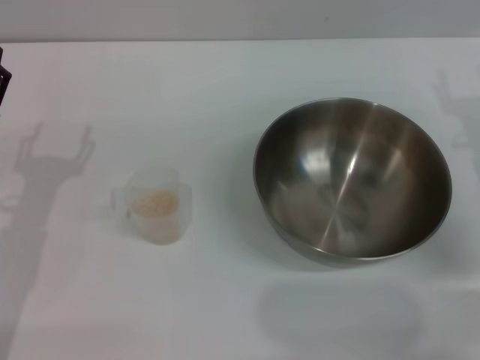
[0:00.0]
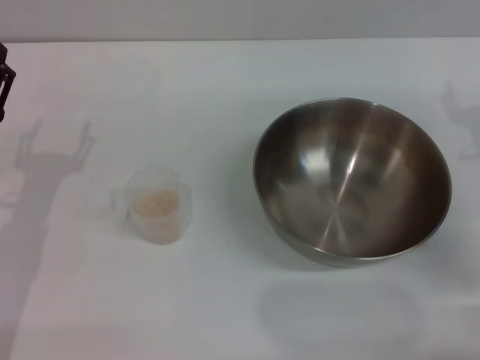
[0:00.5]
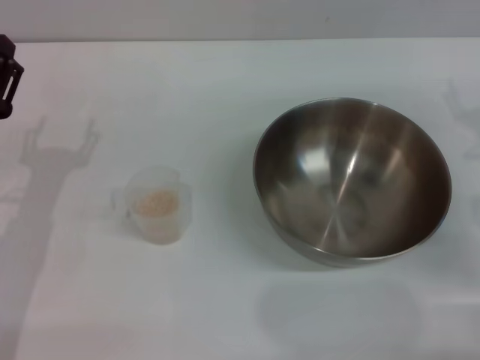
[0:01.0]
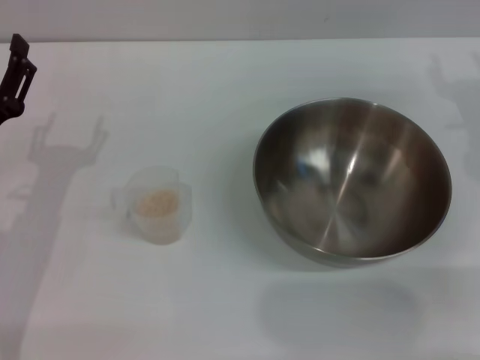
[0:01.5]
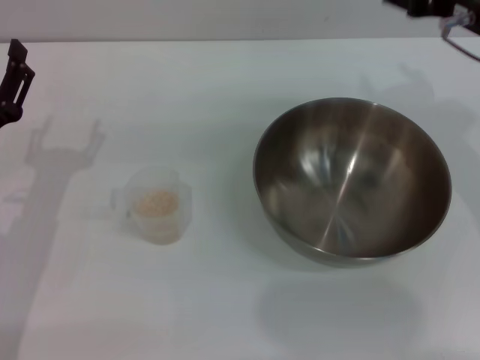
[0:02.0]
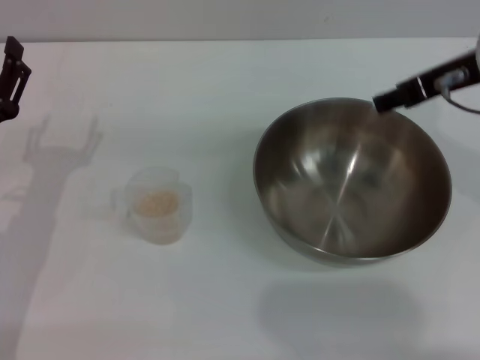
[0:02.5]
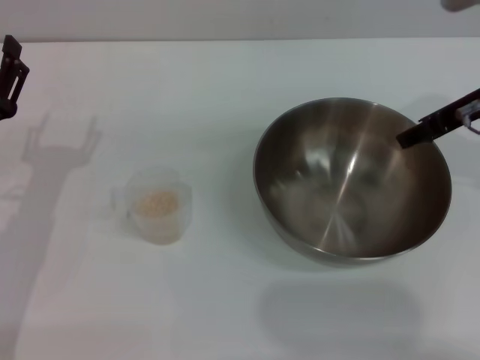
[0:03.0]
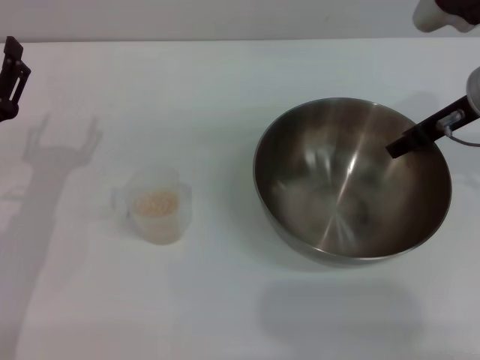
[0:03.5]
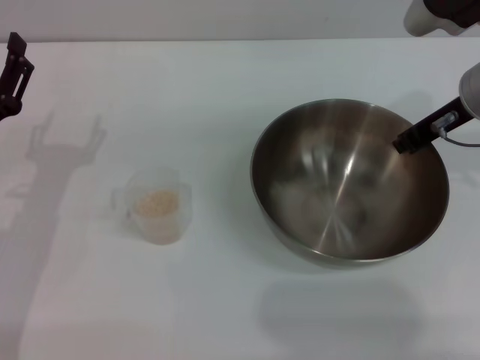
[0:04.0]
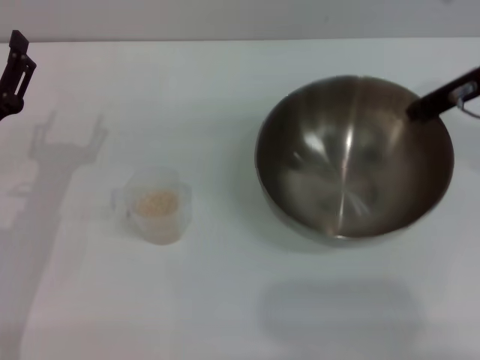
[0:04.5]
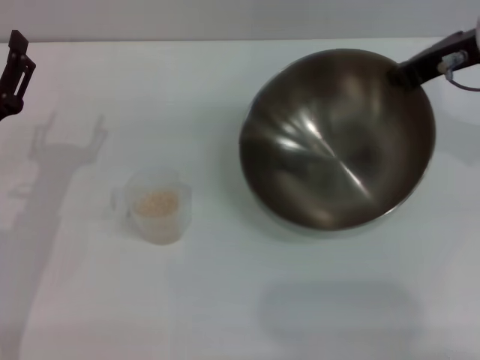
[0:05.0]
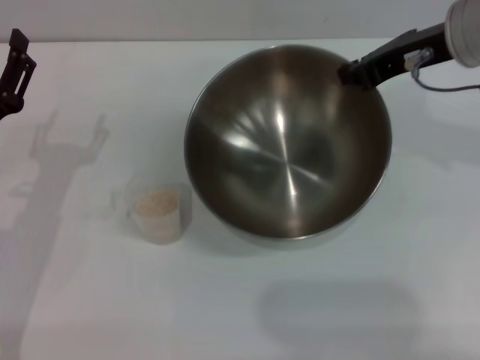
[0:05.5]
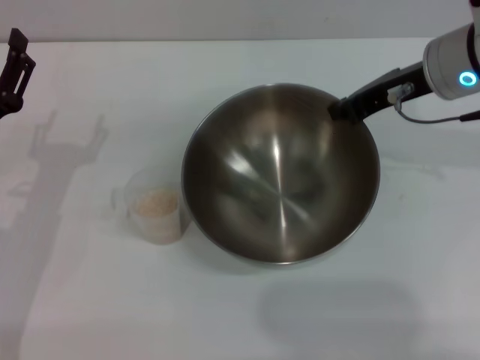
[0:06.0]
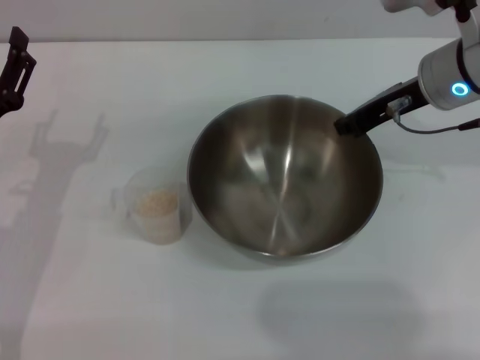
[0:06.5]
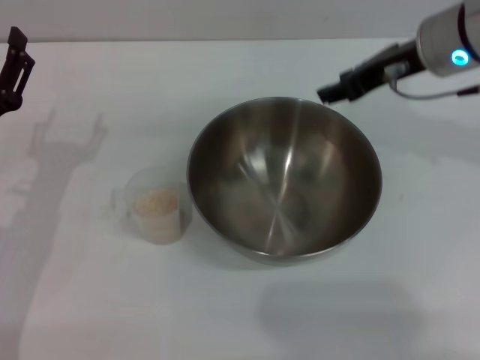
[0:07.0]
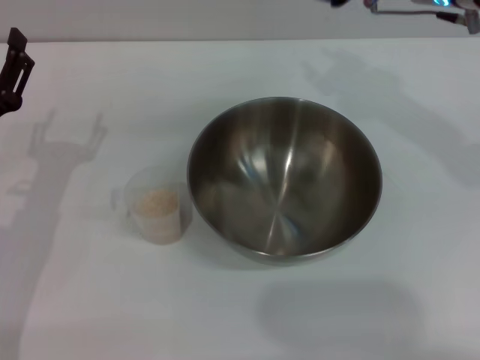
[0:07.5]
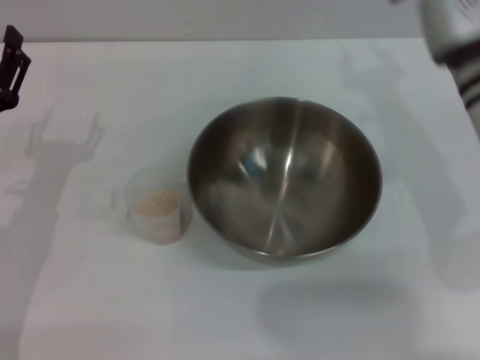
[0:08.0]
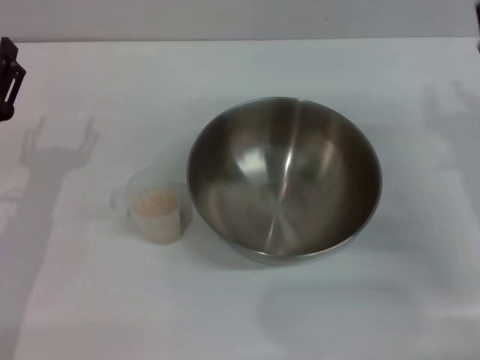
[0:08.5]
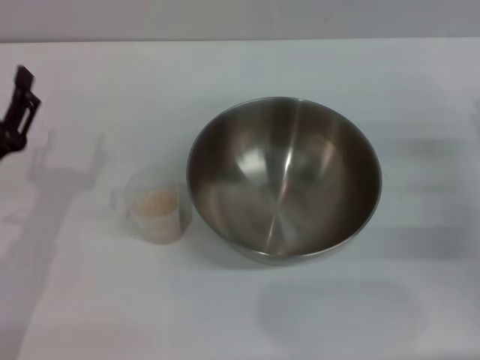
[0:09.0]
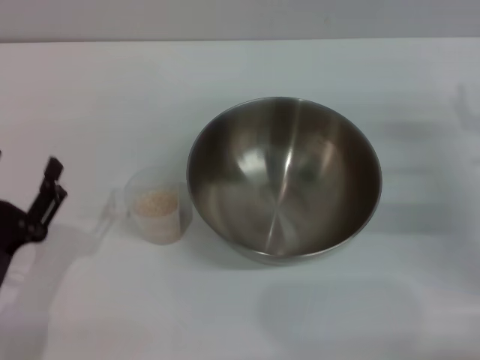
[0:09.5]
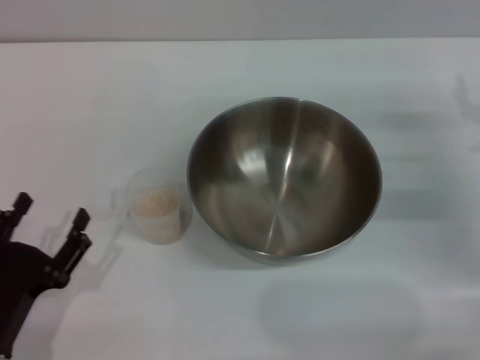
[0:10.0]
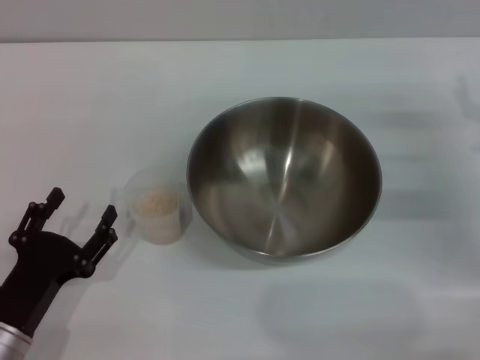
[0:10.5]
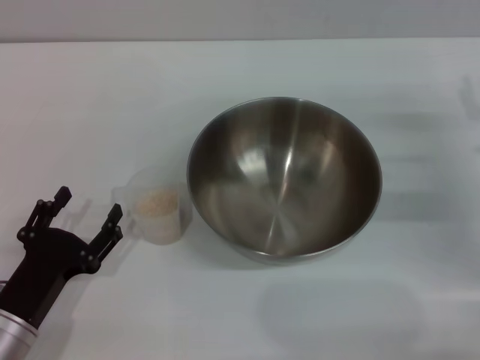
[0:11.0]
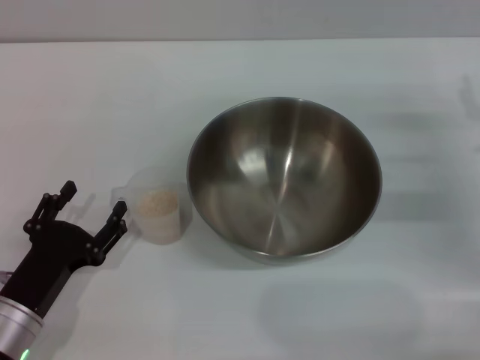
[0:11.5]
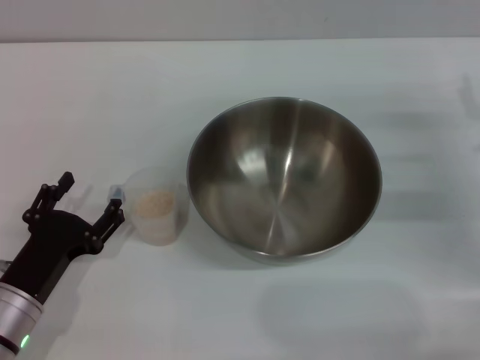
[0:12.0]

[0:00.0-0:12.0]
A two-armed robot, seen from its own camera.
Task of the whole recording: Place the bowl in the middle of the table with one hand and pour the rice from the grain cup into it with the other hand.
Step, 0:00.0 to 0:05.0: Pick up the bowl with the right gripper.
Step, 0:05.5 to 0:08.0: Place the bowl in the center of view with the right gripper.
0:00.0 to 0:02.0: The right gripper heads upward and to the left, covering about 15 cm.
0:02.0 to 0:04.0: The right gripper ends up roughly 5 cm from where it was, and closes.
0:06.0 to 0:08.0: The right gripper opens up.
0:08.0 to 0:10.0: The right gripper goes approximately 15 cm to the right and downward, and opens up, while the left gripper shifts about 15 cm backward and downward.
0:10.0 to 0:12.0: The left gripper goes roughly 5 cm forward.

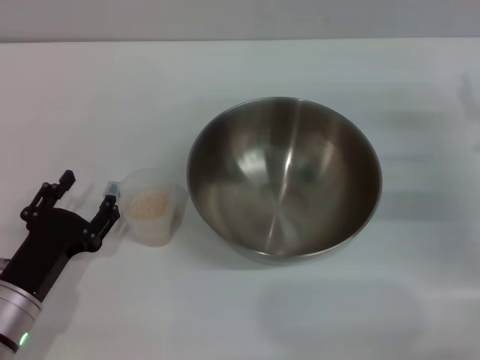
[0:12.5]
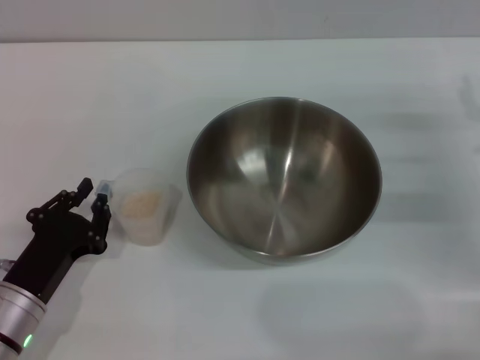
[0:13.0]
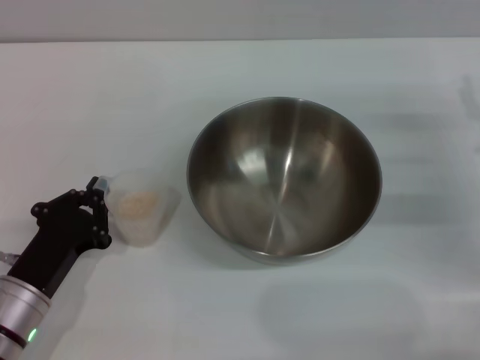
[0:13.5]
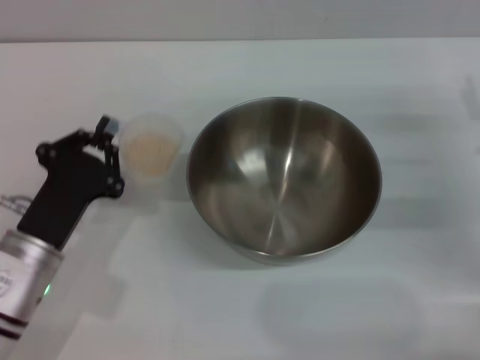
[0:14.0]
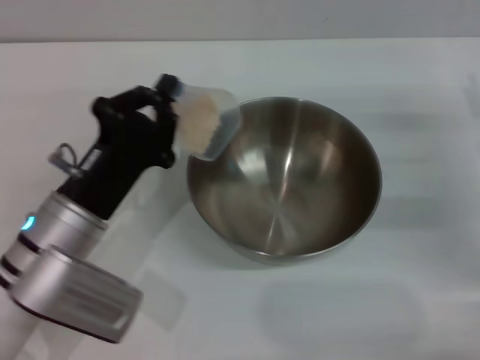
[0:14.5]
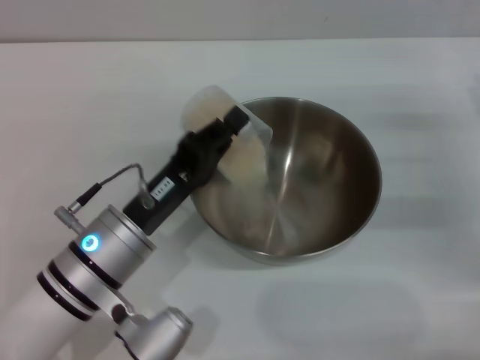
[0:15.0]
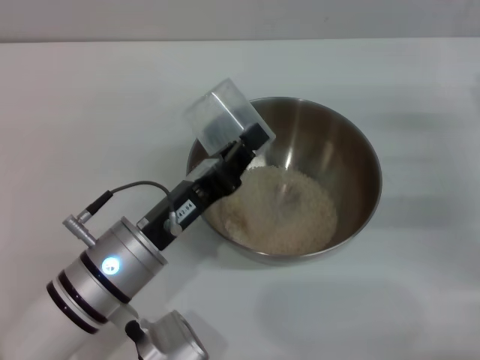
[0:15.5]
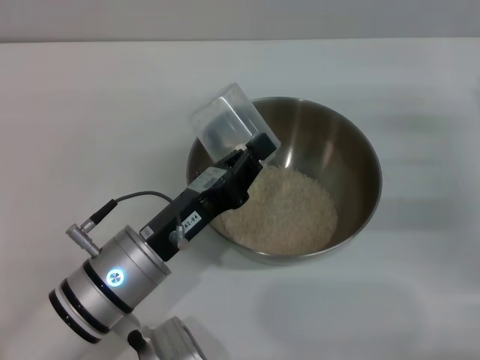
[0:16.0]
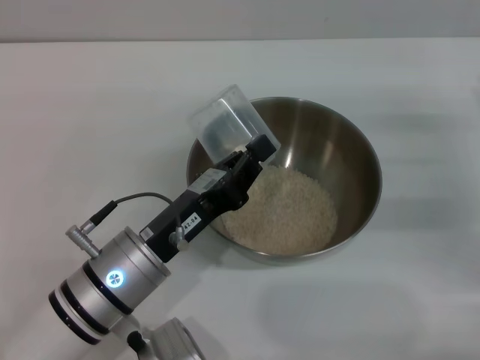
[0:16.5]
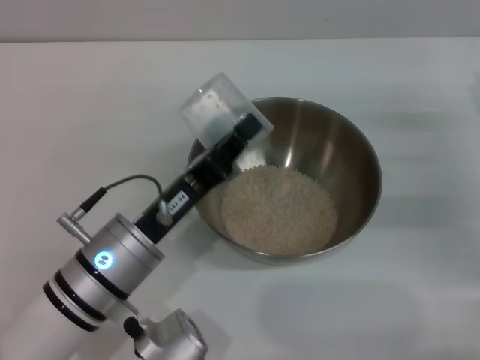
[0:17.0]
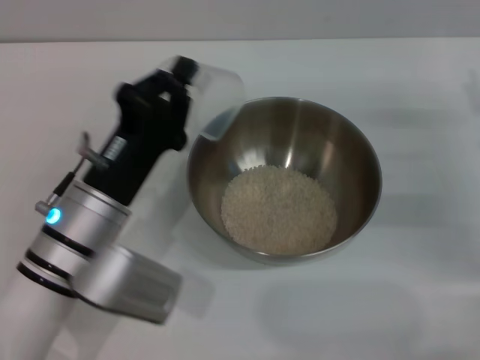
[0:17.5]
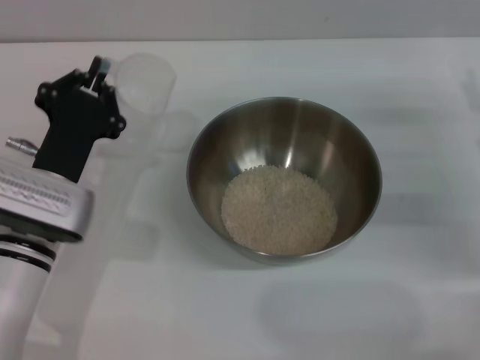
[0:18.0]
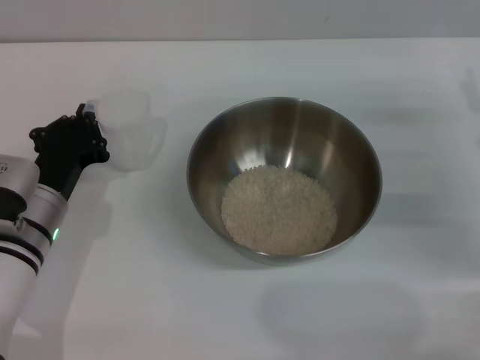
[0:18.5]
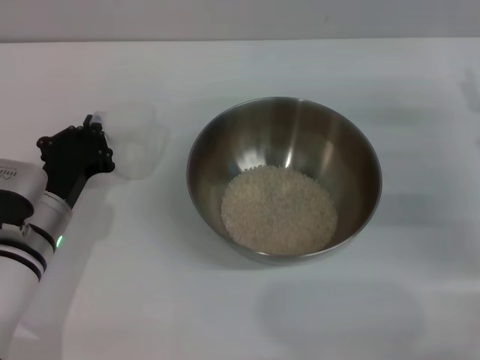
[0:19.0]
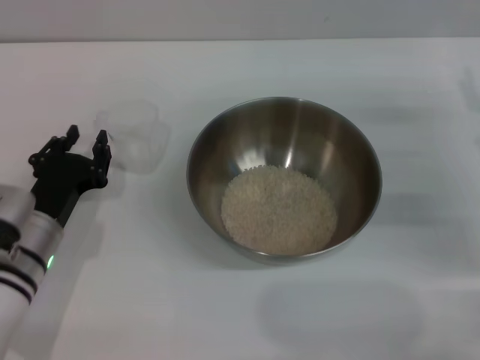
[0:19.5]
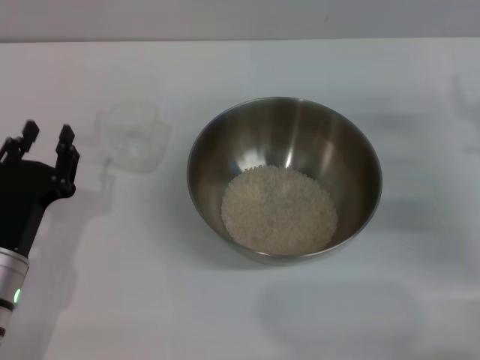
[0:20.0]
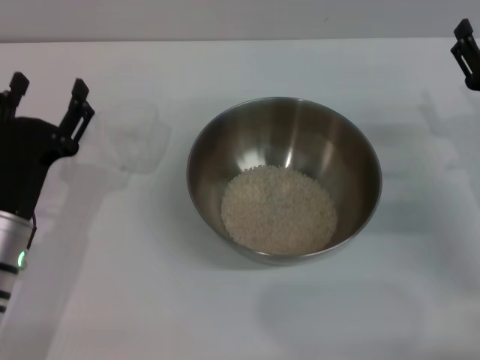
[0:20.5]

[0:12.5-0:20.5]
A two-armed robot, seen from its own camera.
Task of the whole recording: Place the bowl in the middle of the table with one hand and pour the rice from the grain cup into it with the other hand.
Step, 0:14.5 to 0:17.0: Pour the rice from the cup into the bowl with the left gripper.
Step, 0:17.5 to 0:19.5: Place the cup on the table with the left gripper.
0:12.5 to 0:14.5: The left gripper moves to the right, upward and forward, about 10 cm, and closes its fingers.
0:14.5 to 0:16.5: The left gripper shifts by approximately 5 cm.
0:16.5 to 0:18.5: The left gripper heads to the left and forward, covering about 10 cm.
0:18.5 to 0:20.5: The left gripper shifts by about 5 cm, and opens up.

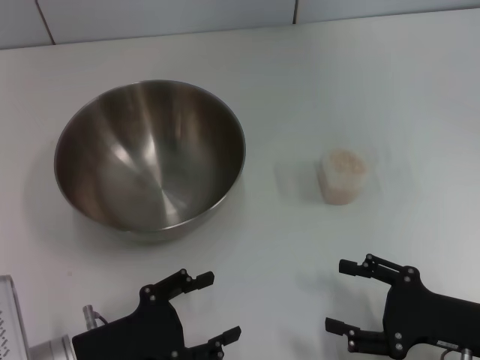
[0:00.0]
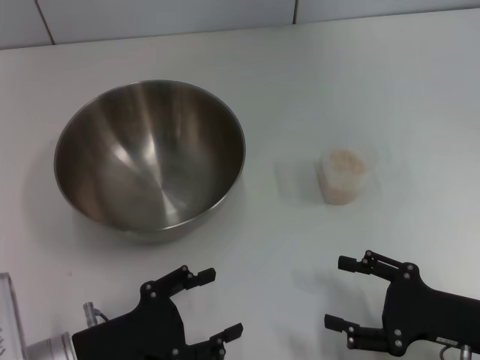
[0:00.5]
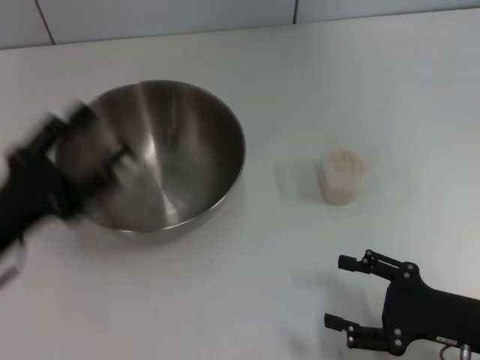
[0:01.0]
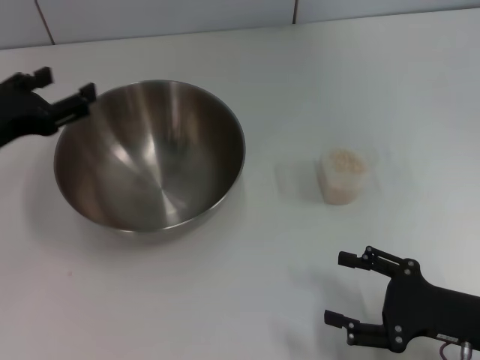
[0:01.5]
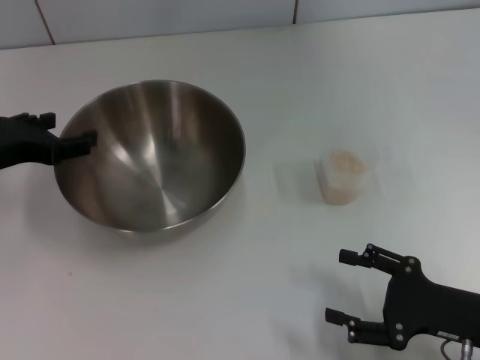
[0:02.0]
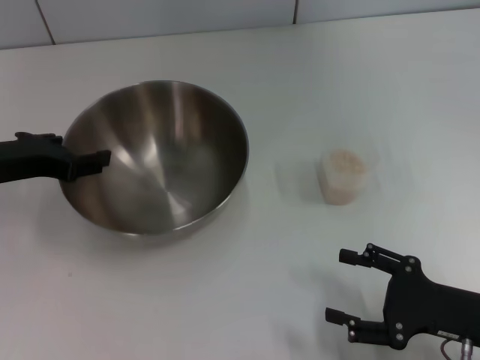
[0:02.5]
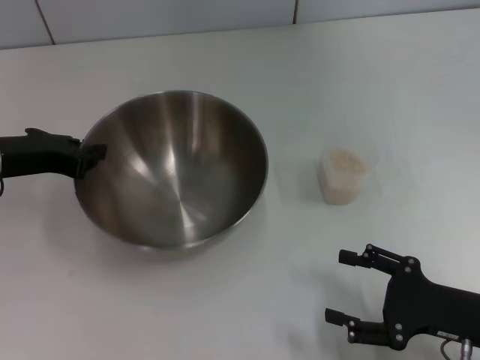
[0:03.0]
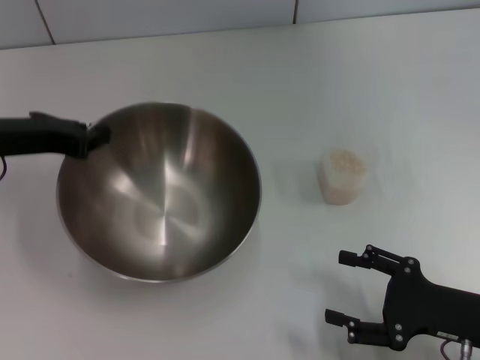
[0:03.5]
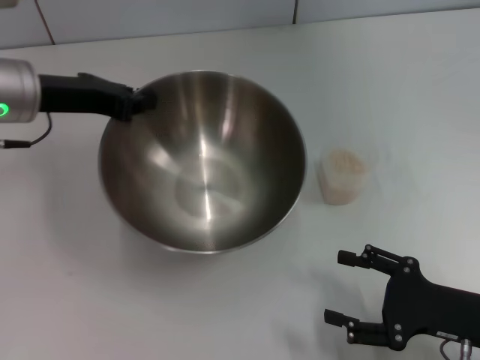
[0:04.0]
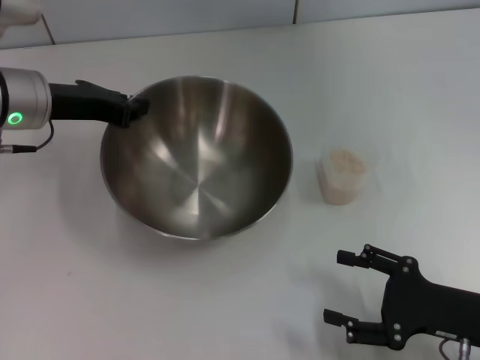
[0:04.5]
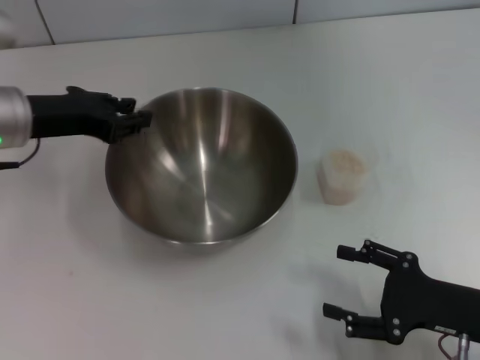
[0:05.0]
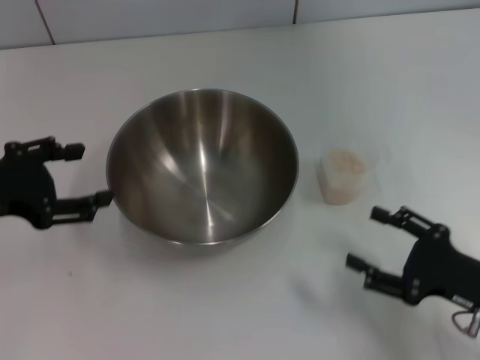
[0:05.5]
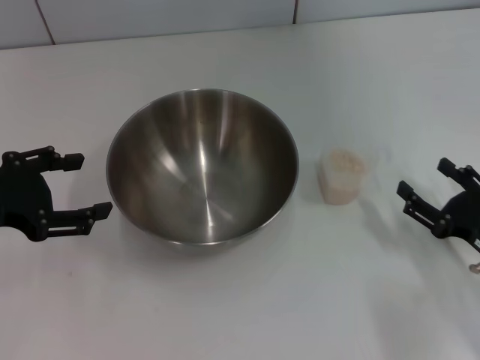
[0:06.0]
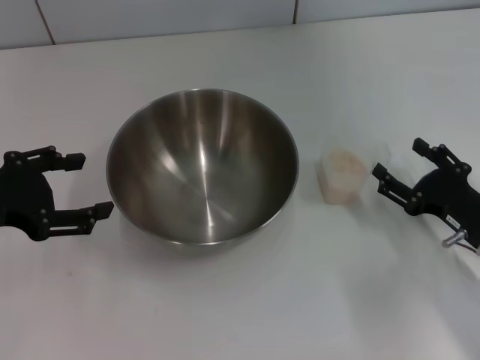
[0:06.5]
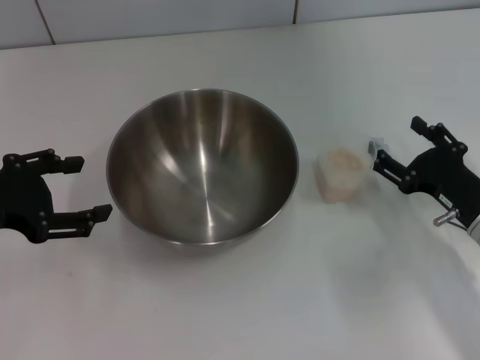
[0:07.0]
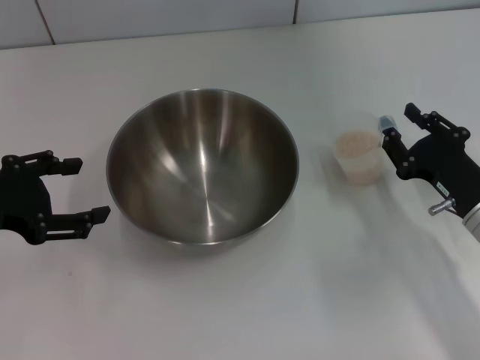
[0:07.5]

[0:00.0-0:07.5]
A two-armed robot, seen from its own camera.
Task of the whole recording: Place the bowl in the middle of the table with one hand and pour the rice from the grain cup into it with the other hand.
Step, 0:00.0 to 0:03.0: Pick up the bowl with the left gripper.
Step, 0:03.5 to 0:05.0: Place the bowl in the center of view with the left gripper.
0:00.0 to 0:02.0: The left gripper shifts roughly 20 cm forward, upward and to the left.
0:02.0 to 0:04.0: The left gripper heads forward and to the right, covering approximately 10 cm, and closes its fingers.
0:04.0 to 0:05.5: The left gripper heads backward and to the left, covering roughly 15 cm, and opens.
0:05.5 to 0:07.5: The right gripper goes about 10 cm forward.
